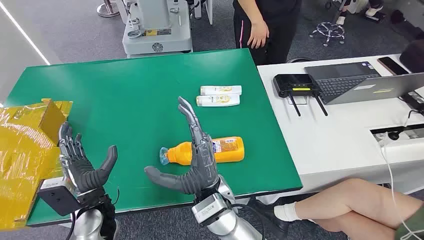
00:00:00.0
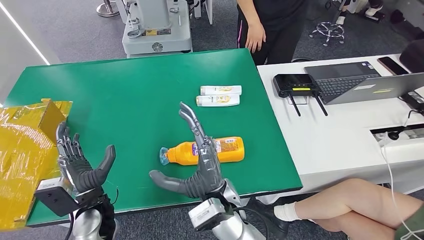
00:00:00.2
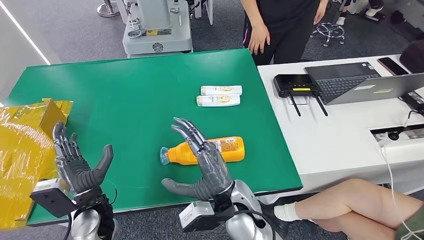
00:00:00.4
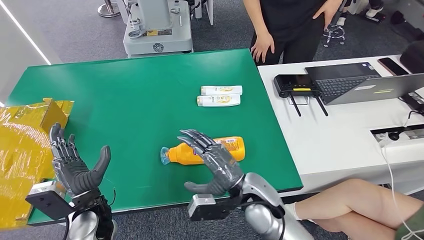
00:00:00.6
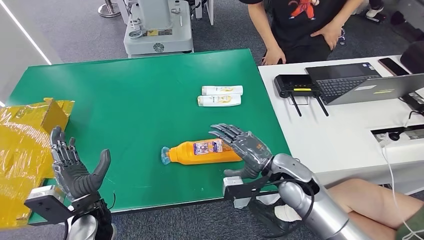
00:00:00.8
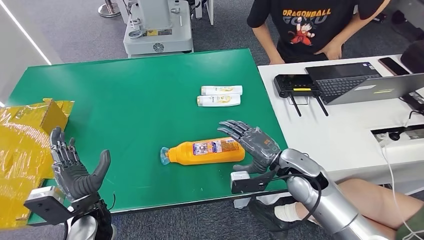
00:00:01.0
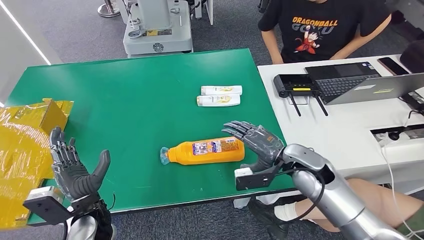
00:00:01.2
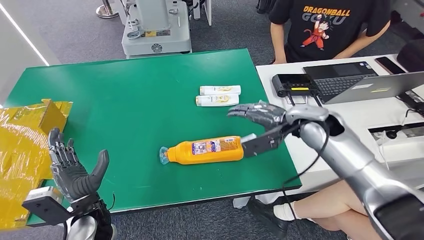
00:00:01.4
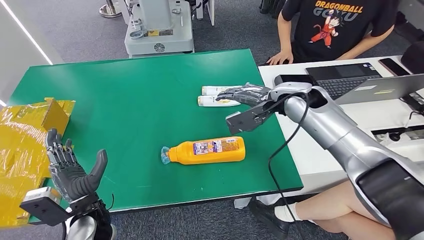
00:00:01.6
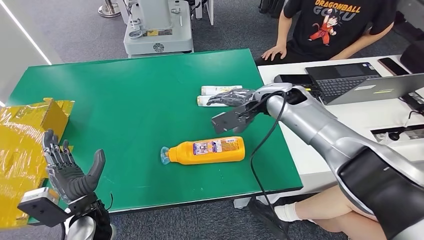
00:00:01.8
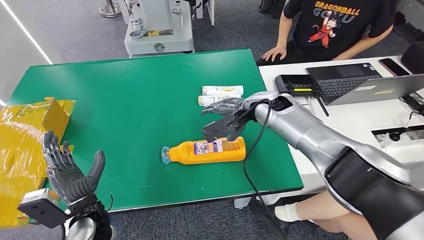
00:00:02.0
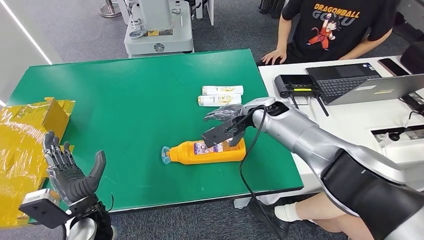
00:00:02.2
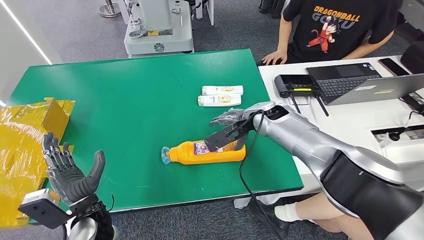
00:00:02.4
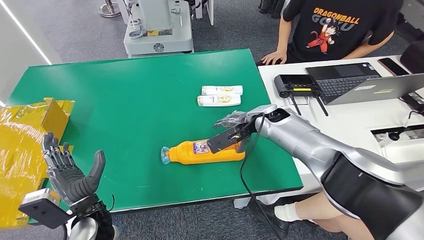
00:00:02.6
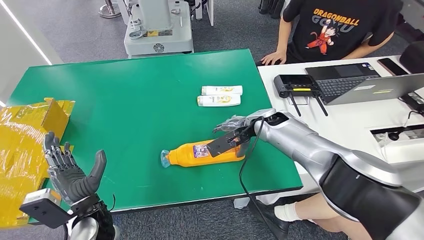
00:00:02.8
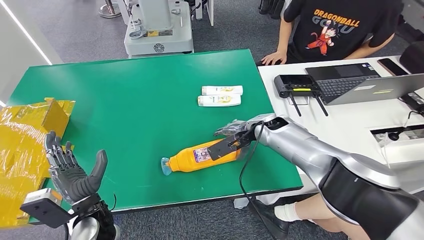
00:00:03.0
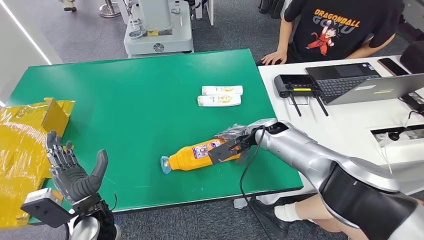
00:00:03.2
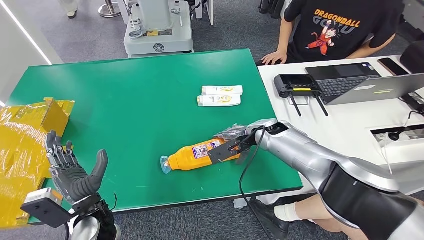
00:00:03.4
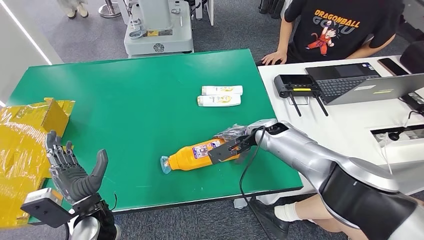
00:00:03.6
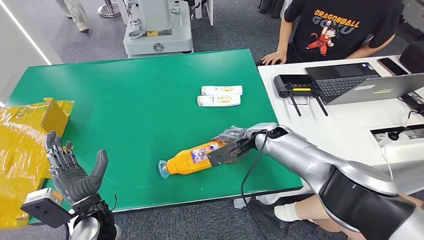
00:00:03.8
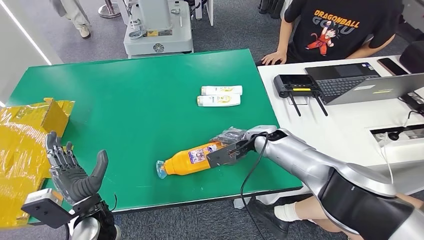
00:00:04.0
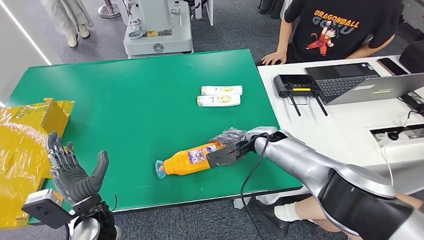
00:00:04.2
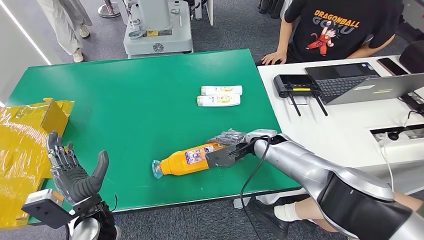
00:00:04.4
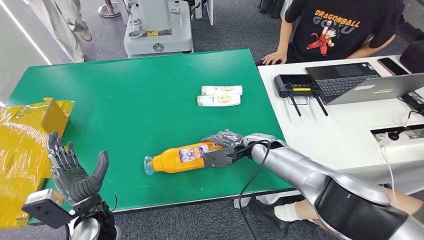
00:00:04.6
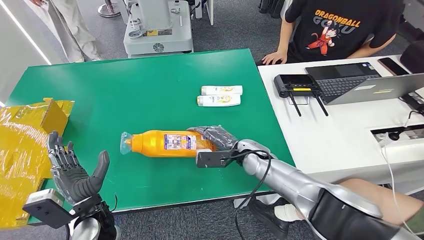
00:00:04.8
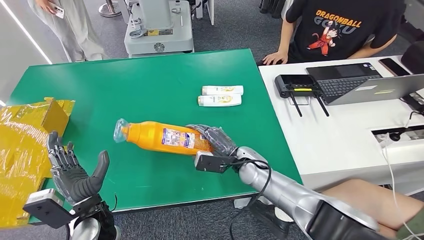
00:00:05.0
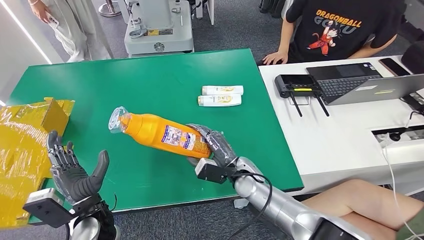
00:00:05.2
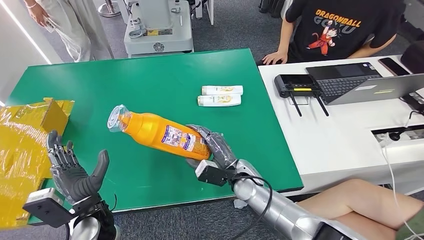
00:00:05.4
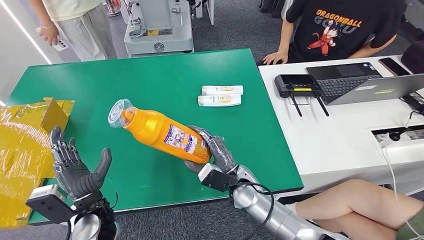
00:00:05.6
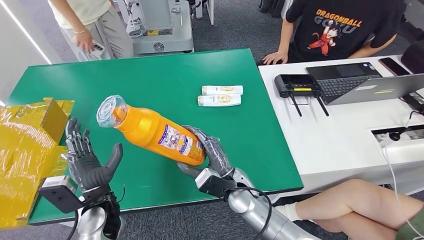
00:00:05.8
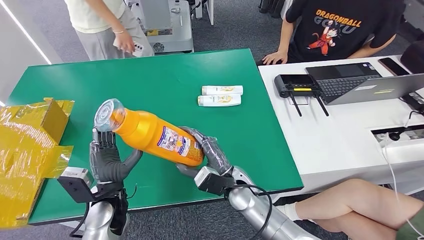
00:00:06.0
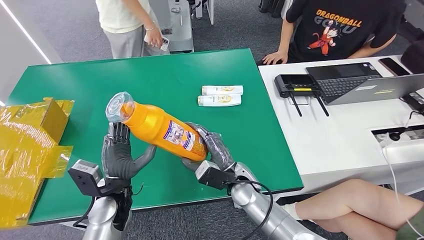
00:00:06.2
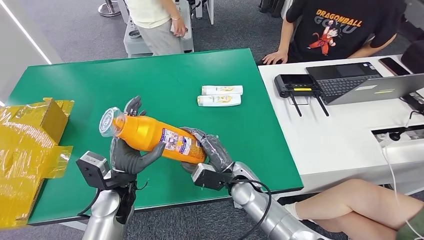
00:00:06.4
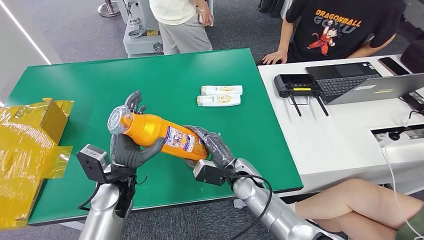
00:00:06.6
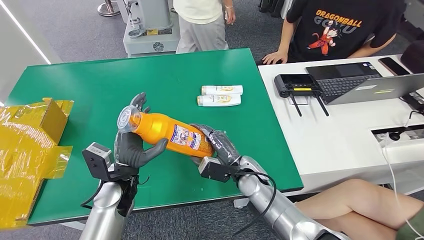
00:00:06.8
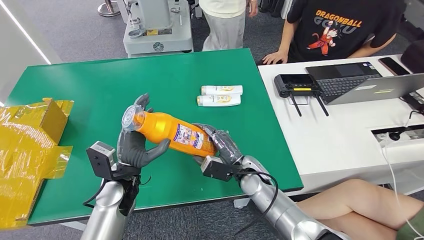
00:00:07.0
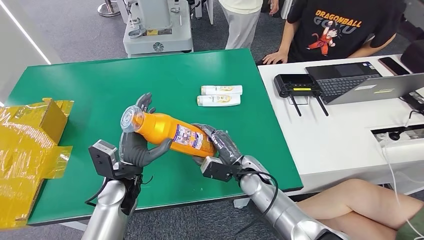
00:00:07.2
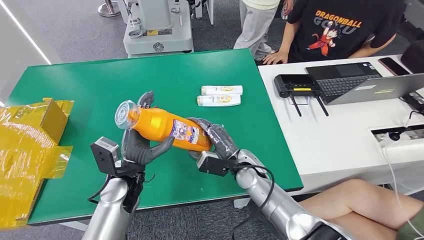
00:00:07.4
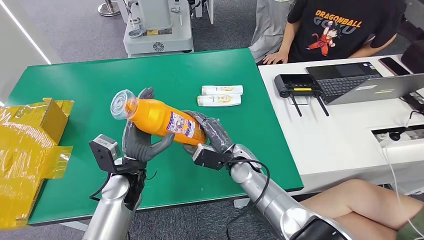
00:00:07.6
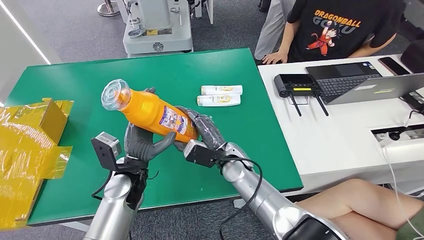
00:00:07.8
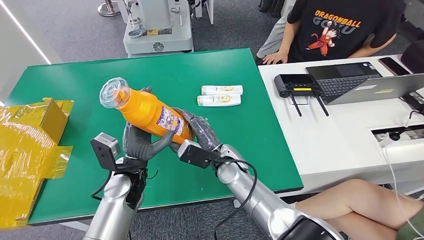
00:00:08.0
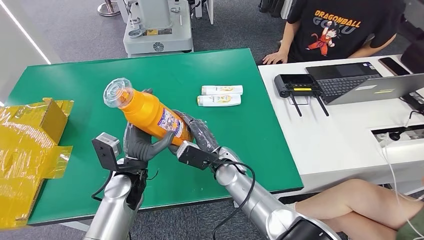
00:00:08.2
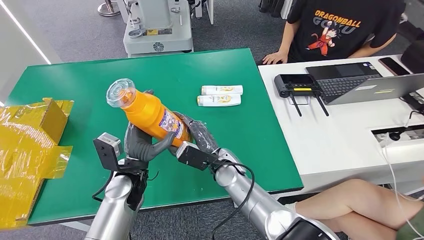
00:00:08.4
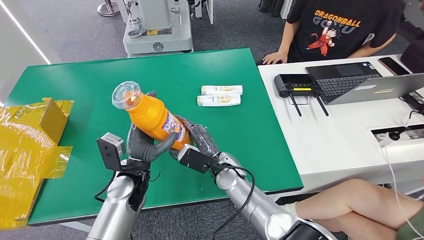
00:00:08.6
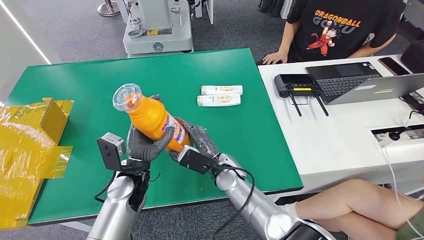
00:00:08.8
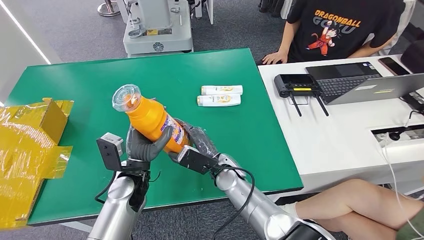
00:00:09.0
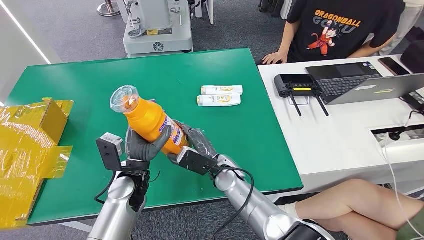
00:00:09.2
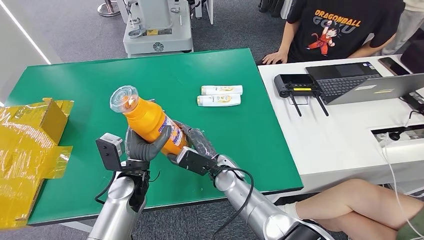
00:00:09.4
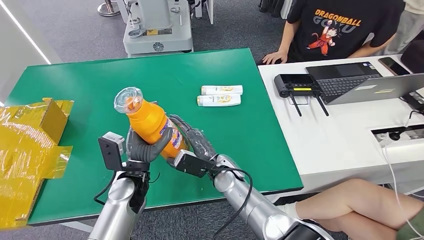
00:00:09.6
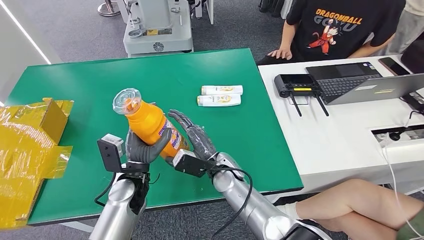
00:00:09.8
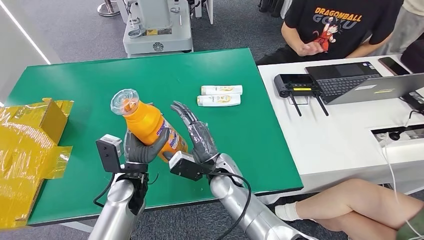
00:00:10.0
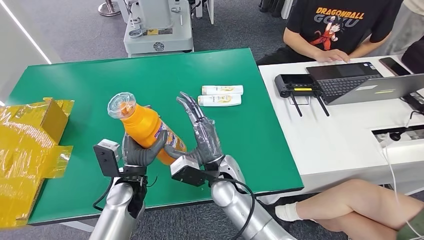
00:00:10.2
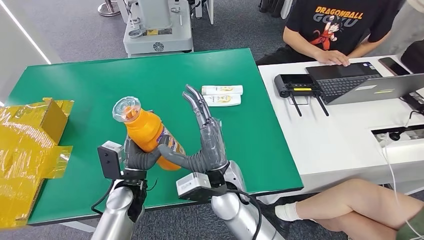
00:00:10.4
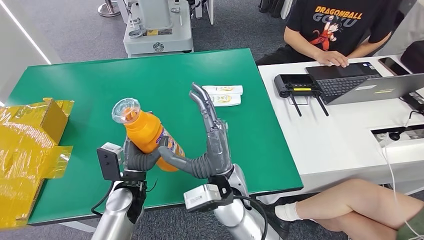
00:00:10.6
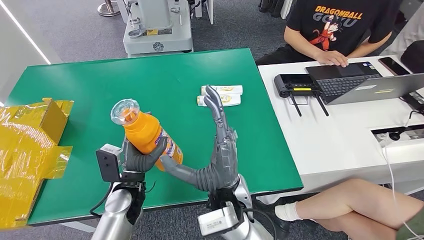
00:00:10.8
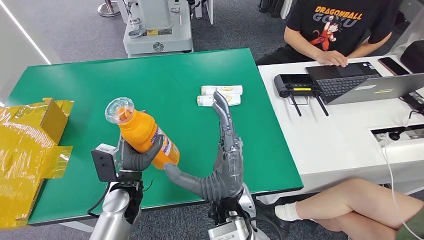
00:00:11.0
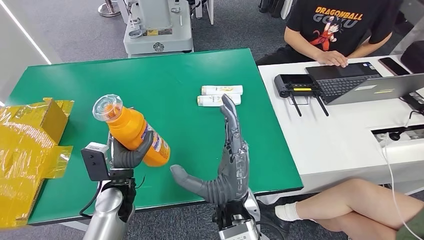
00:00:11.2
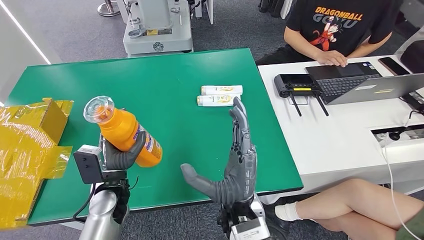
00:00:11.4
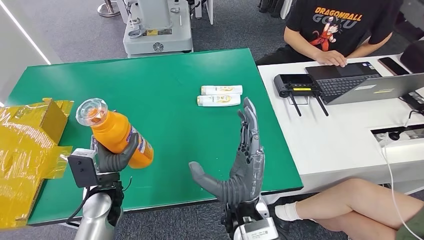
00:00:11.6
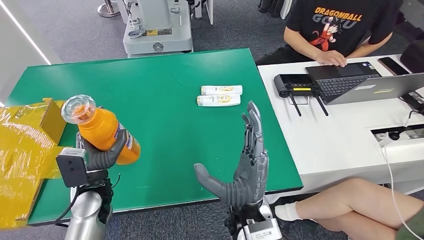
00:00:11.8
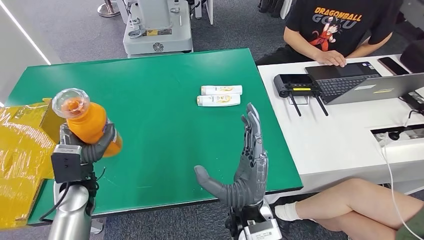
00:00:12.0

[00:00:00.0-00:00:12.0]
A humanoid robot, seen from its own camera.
Step, 00:00:00.0 to 00:00:05.4: Pick up the bottle from the table.
00:00:03.0 to 00:00:04.4: The right hand moves roughly 5 cm.
00:00:07.6 to 00:00:09.0: The right hand ends up approximately 5 cm from where it was.
00:00:09.0 to 00:00:10.4: The right hand heads upward, covering roughly 10 cm.

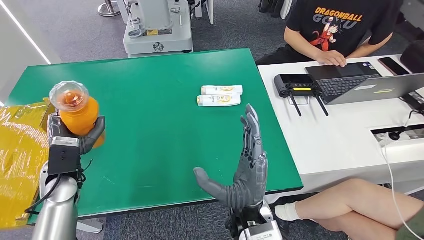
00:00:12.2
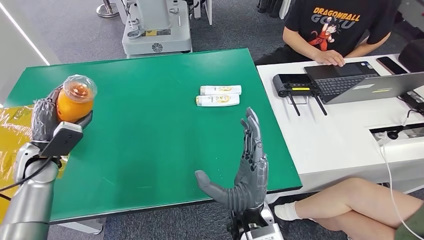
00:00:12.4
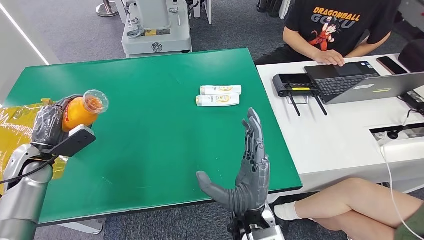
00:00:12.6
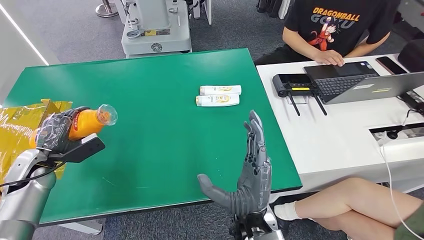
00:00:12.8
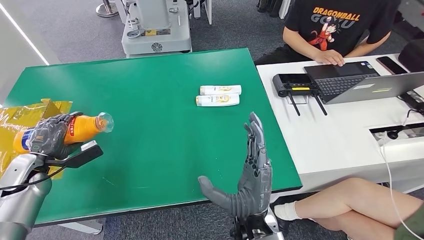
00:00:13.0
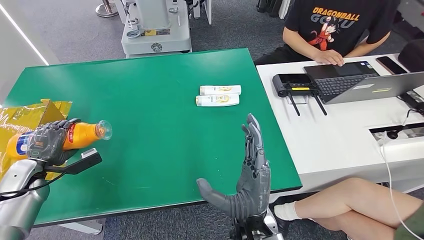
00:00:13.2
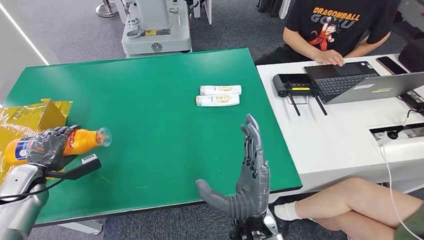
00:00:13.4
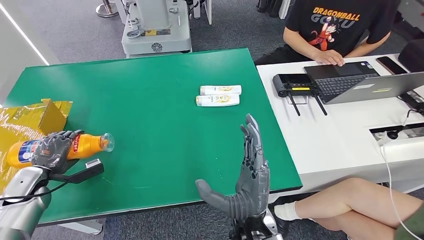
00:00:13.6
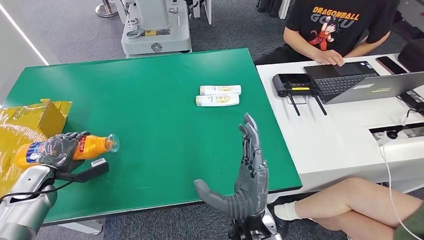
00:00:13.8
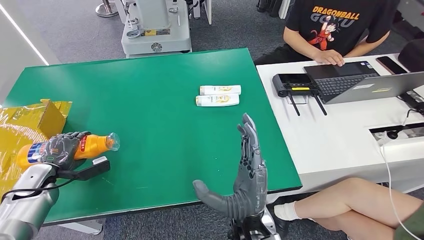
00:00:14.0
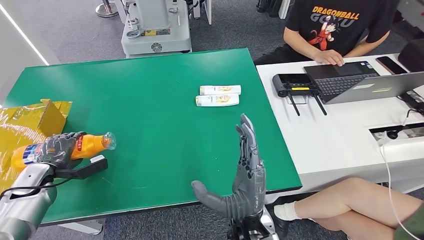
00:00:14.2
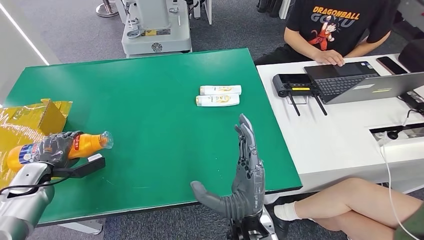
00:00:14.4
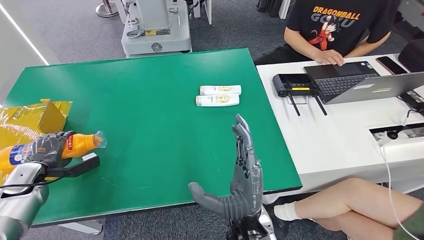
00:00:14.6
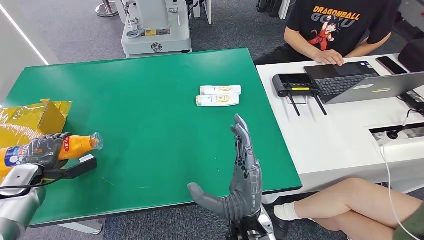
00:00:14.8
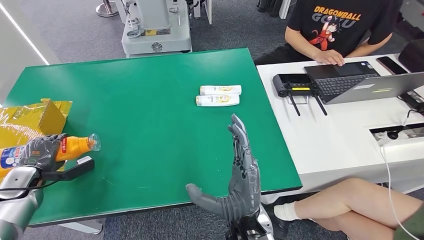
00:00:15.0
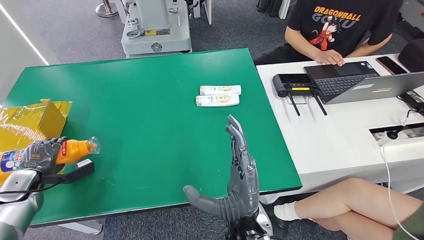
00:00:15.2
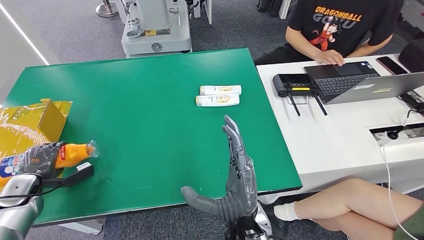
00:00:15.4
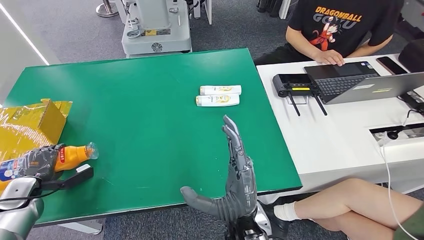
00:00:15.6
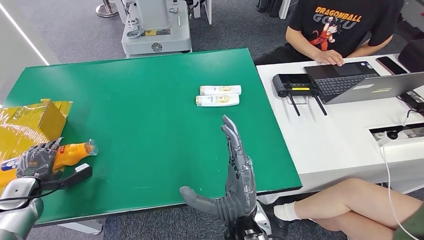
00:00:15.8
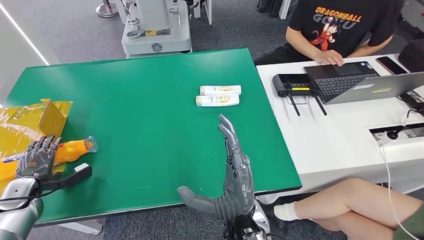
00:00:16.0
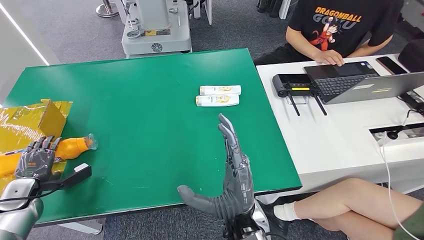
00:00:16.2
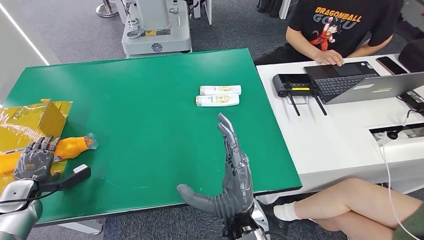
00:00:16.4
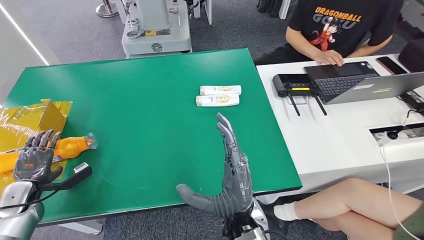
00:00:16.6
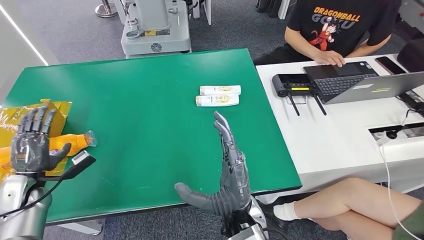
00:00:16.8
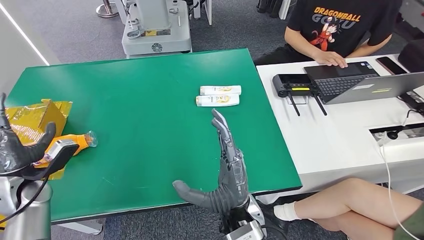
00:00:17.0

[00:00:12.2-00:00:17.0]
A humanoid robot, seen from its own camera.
Step, 00:00:12.2 to 00:00:17.0: Turn the bottle to the front side.
00:00:13.8 to 00:00:15.4: The hands move only a little.
00:00:15.4 to 00:00:17.0: The left hand travels to the right and upward by some 15 cm.
